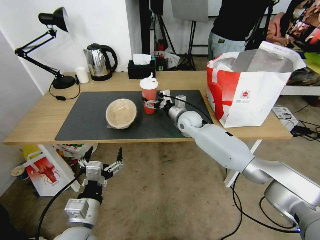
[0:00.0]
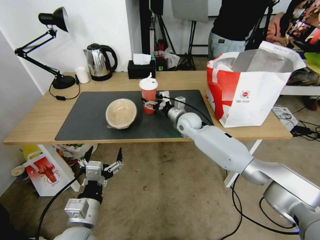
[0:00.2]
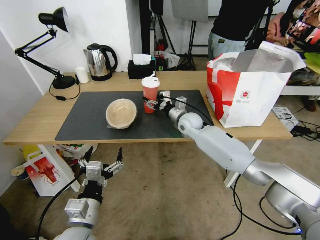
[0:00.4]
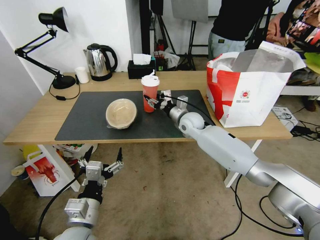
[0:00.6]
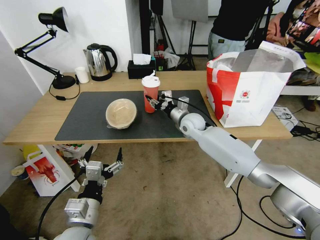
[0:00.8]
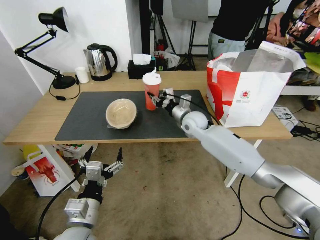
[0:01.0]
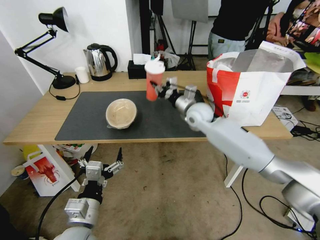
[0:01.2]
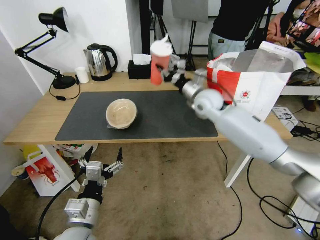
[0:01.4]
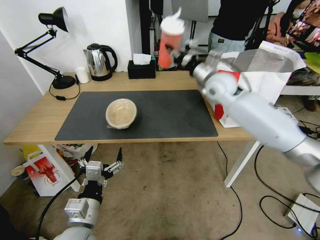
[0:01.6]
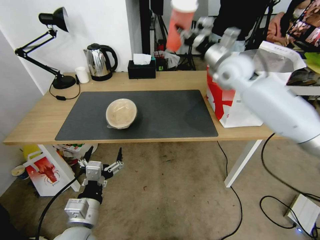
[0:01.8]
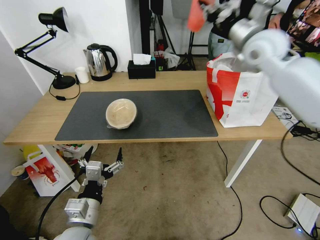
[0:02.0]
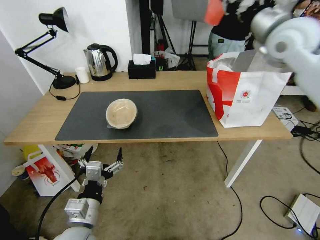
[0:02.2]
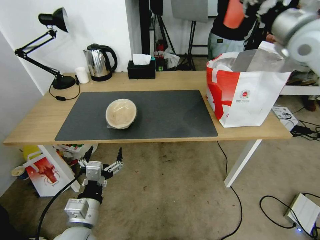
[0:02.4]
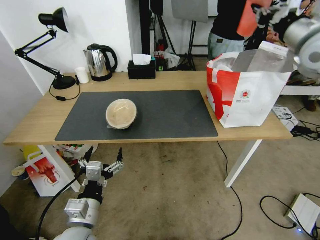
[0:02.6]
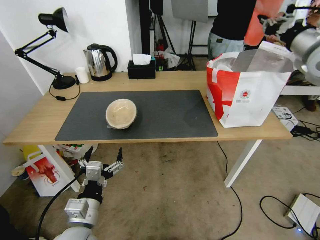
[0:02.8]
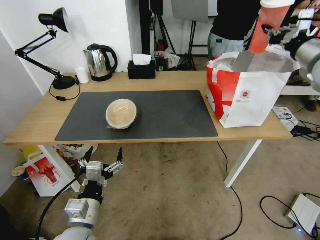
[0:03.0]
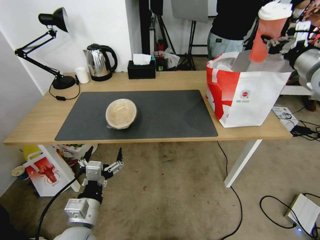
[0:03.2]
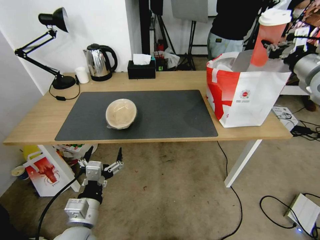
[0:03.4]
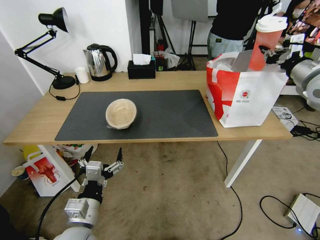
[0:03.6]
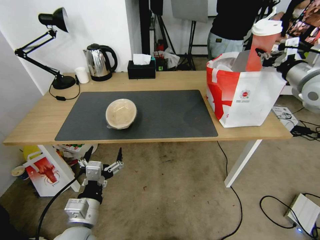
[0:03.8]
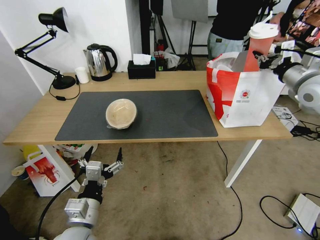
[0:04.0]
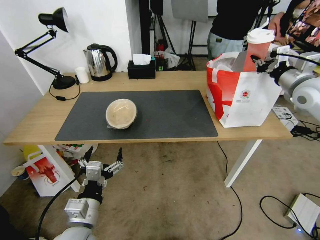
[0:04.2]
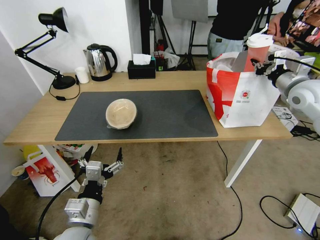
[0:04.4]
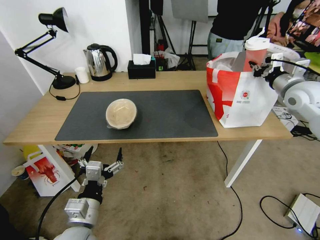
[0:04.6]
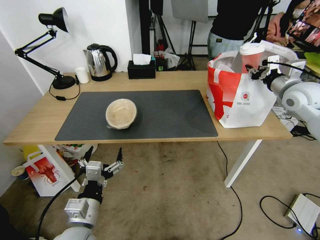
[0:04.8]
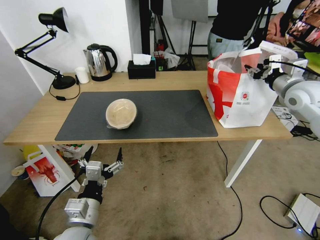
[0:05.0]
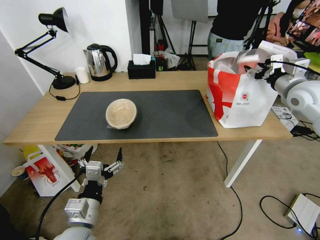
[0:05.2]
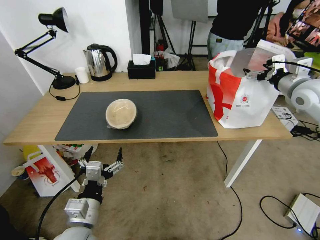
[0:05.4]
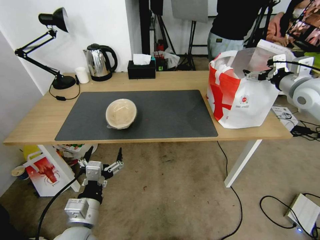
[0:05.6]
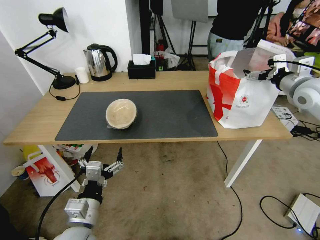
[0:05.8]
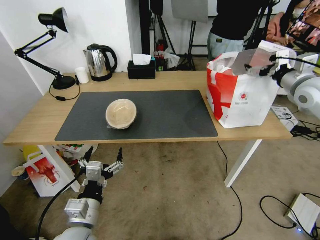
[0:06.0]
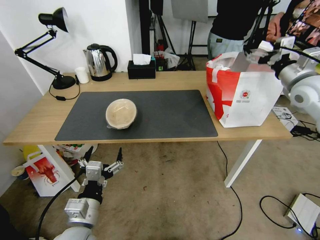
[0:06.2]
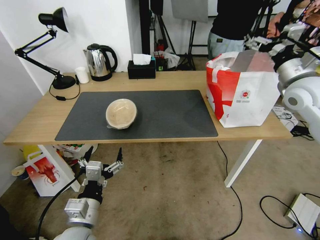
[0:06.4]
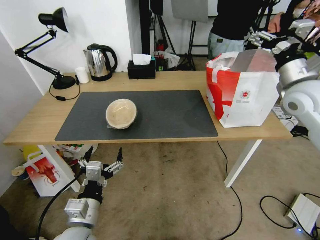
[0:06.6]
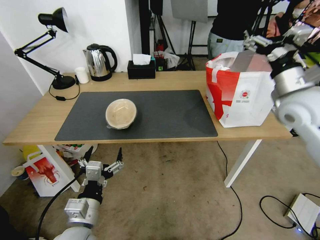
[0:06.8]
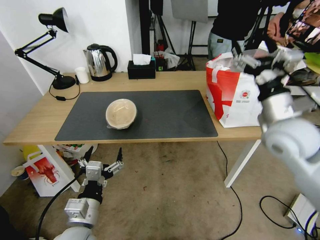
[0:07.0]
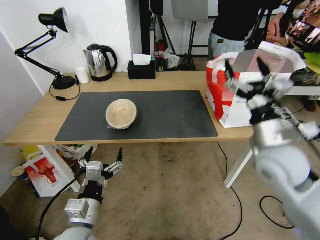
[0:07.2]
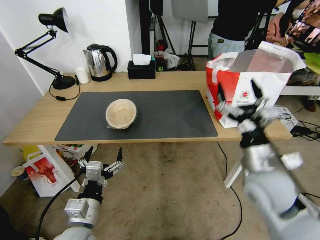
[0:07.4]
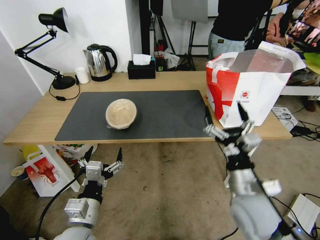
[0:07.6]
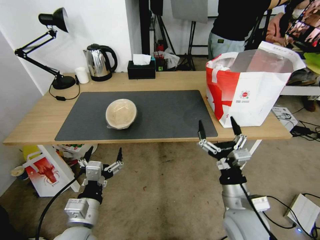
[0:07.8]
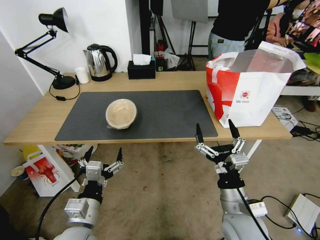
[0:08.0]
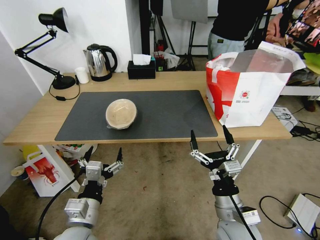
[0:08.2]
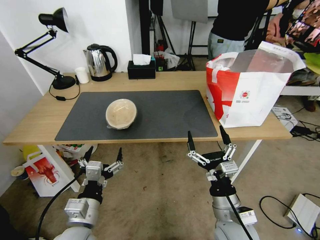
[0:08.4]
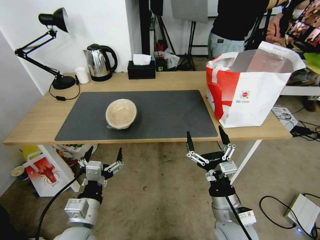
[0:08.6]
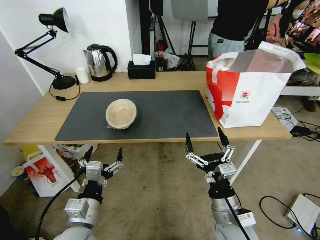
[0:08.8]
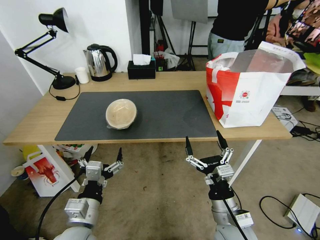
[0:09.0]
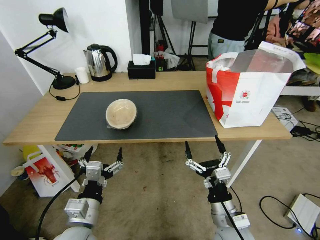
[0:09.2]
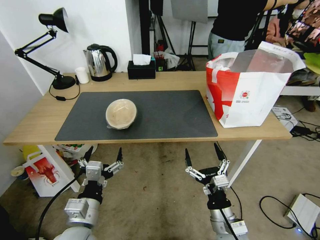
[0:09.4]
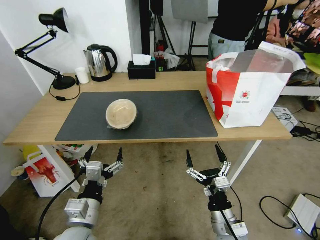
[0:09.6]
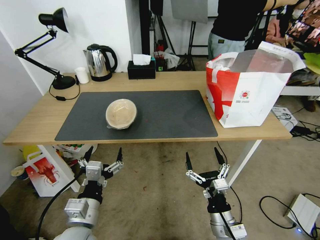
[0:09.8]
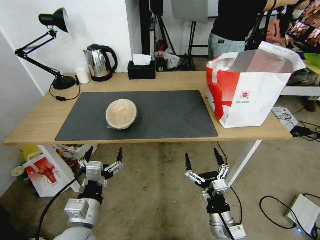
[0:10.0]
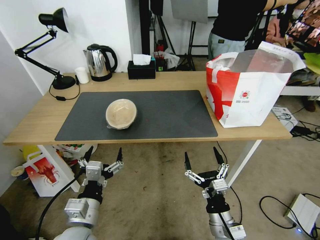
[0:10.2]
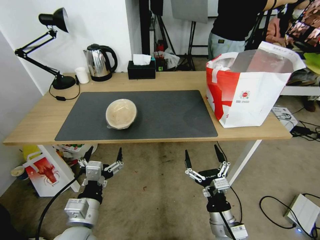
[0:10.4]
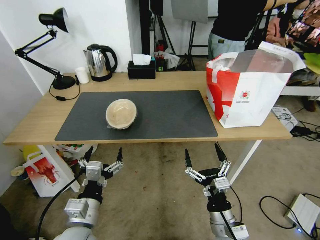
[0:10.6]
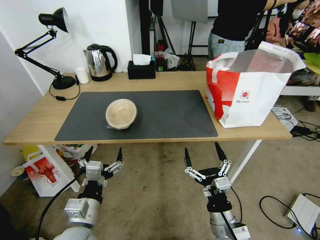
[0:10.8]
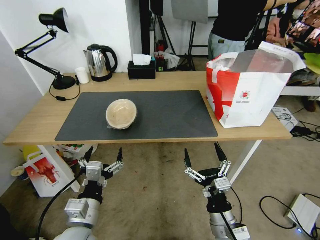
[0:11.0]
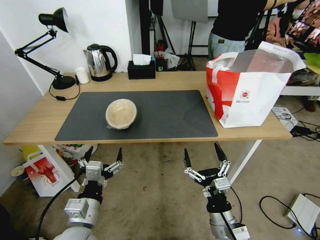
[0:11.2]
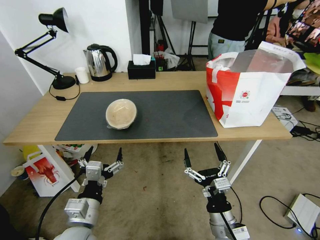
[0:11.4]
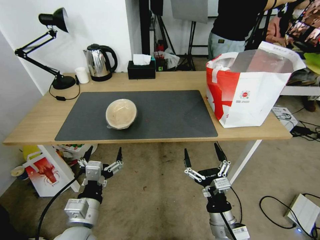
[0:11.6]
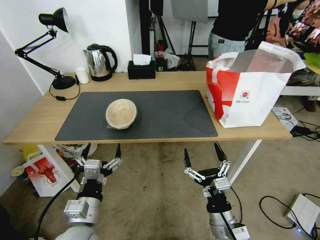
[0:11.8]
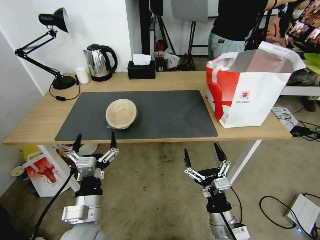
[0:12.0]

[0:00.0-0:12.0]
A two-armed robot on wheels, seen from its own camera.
Task of the whole recording: Pick up the trash from the table and place it into the takeout bag.
0:00.0 to 0:01.6: The right gripper travels upward and to the right by about 20 cm, and closes.
0:01.6 to 0:03.0: The right gripper is displaced to the right, upward and backward by approximately 25 cm.
0:03.0 to 0:04.4: The right gripper shifts roughly 10 cm downward.
0:04.4 to 0:06.0: The right gripper opens up.
0:06.0 to 0:07.6: The right gripper goes about 35 cm backward, to the left and downward.
0:07.6 to 0:09.0: The right gripper moves downward and backward, approximately 10 cm.
0:09.0 to 0:12.0: The grippers make only small movements.

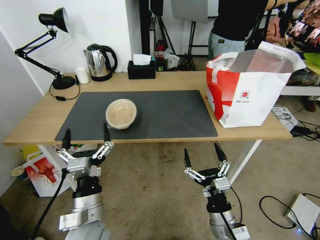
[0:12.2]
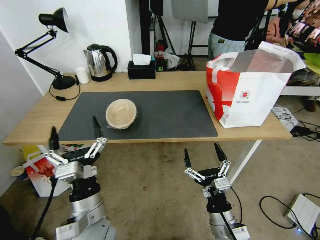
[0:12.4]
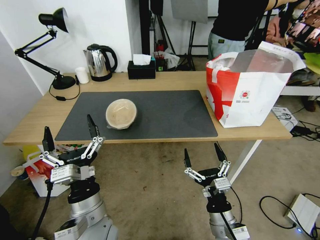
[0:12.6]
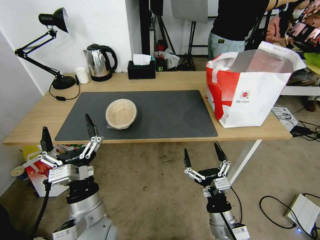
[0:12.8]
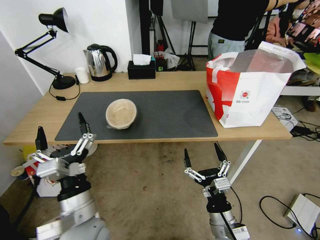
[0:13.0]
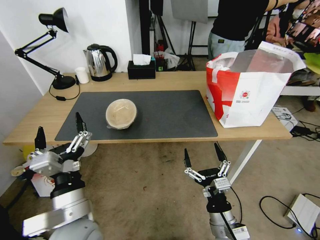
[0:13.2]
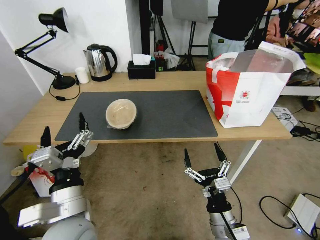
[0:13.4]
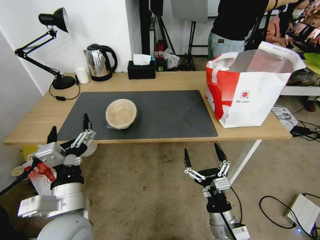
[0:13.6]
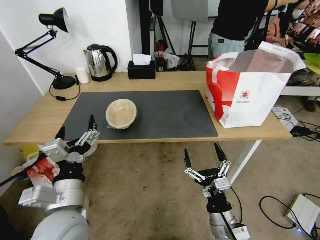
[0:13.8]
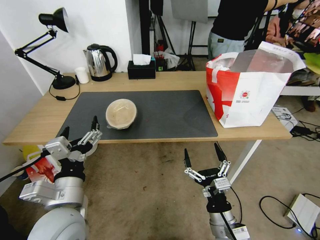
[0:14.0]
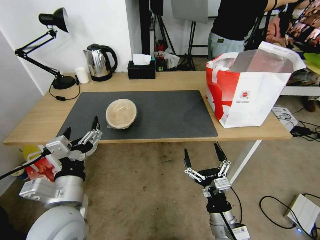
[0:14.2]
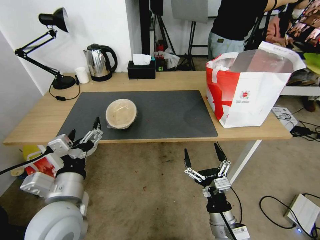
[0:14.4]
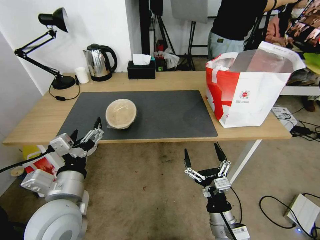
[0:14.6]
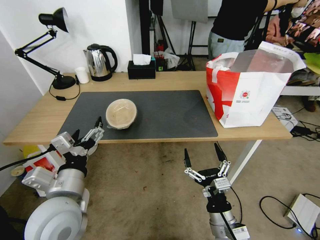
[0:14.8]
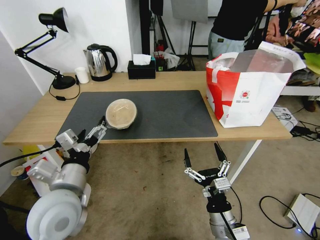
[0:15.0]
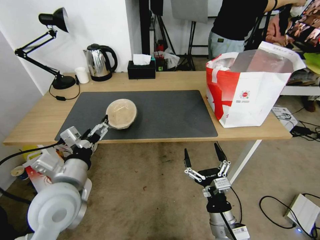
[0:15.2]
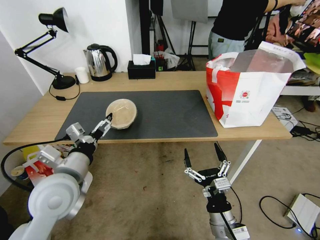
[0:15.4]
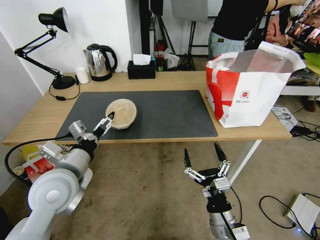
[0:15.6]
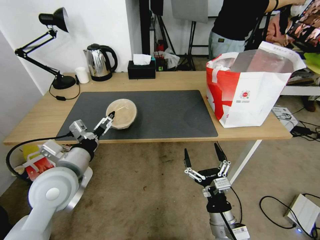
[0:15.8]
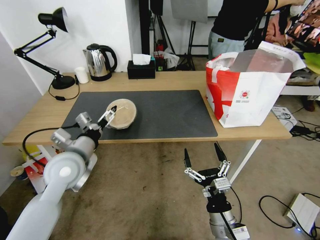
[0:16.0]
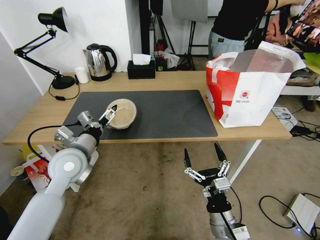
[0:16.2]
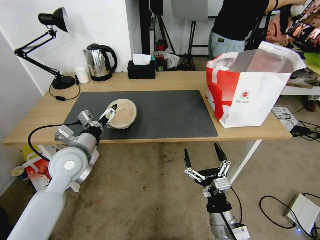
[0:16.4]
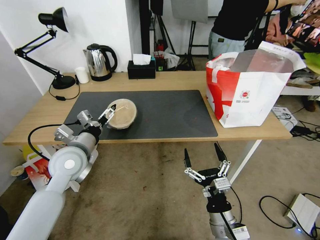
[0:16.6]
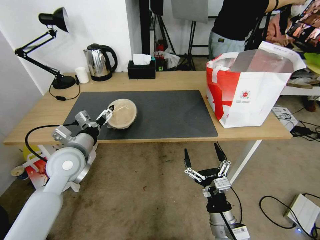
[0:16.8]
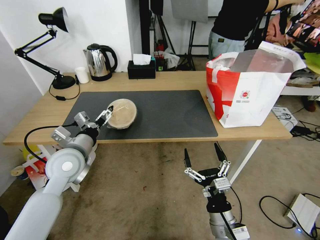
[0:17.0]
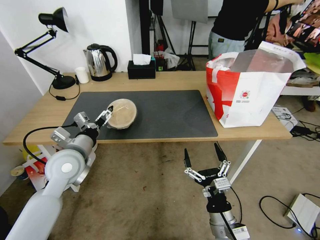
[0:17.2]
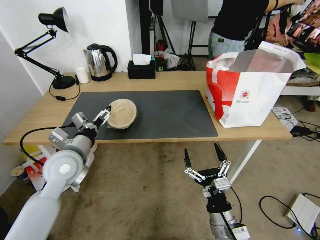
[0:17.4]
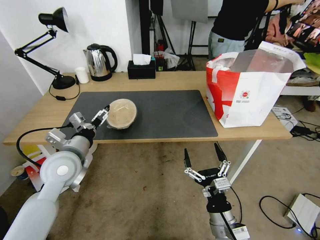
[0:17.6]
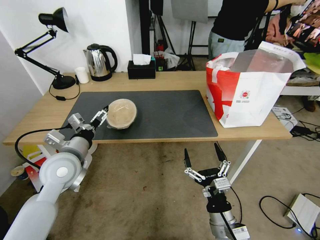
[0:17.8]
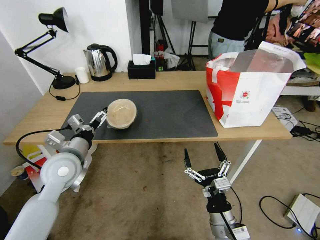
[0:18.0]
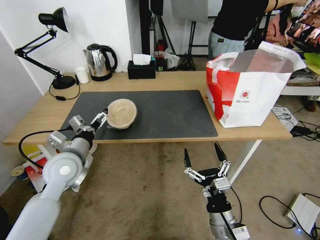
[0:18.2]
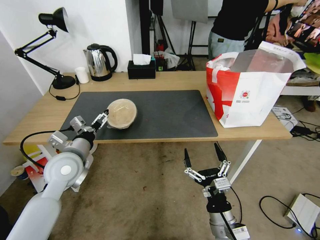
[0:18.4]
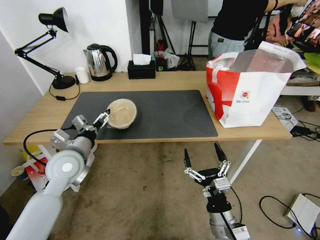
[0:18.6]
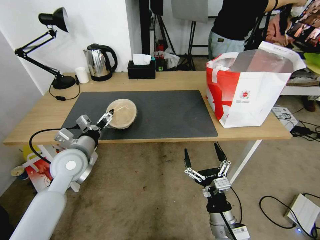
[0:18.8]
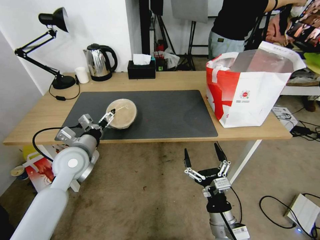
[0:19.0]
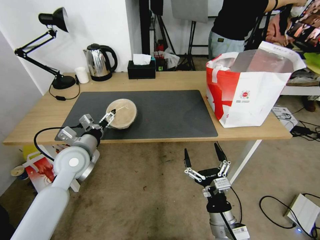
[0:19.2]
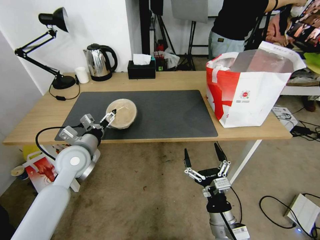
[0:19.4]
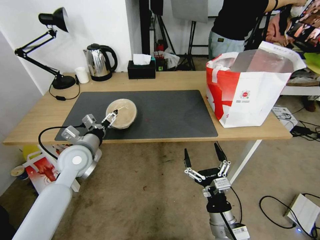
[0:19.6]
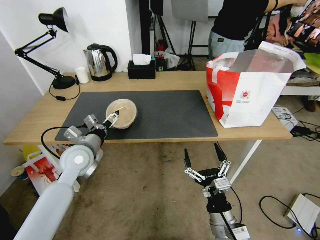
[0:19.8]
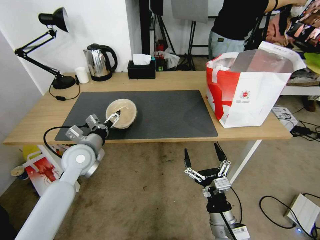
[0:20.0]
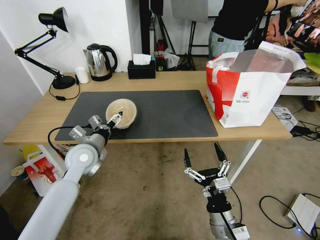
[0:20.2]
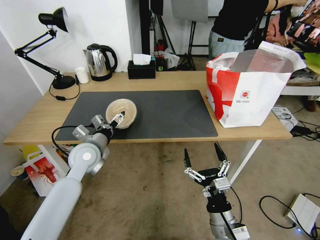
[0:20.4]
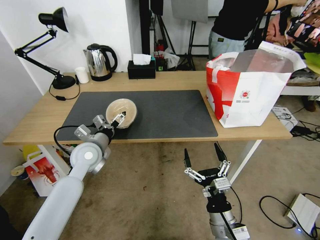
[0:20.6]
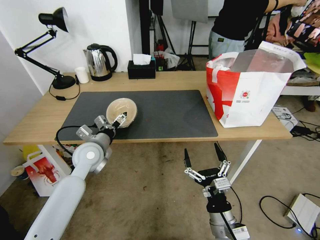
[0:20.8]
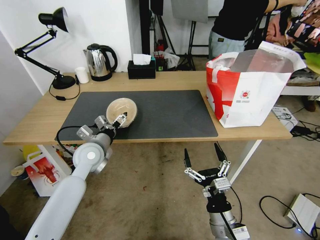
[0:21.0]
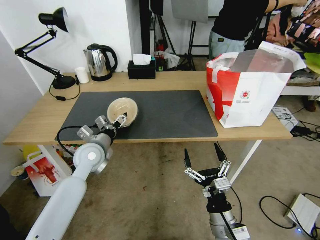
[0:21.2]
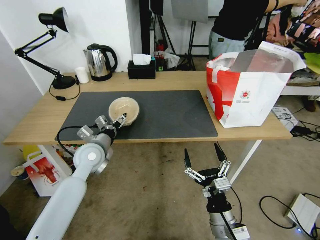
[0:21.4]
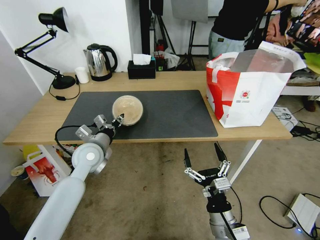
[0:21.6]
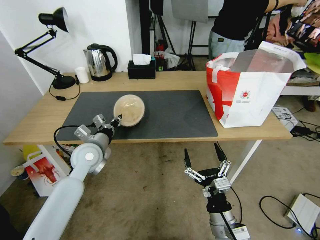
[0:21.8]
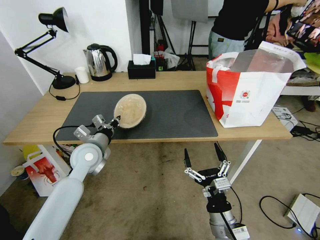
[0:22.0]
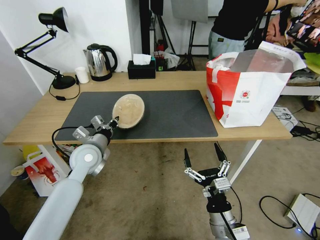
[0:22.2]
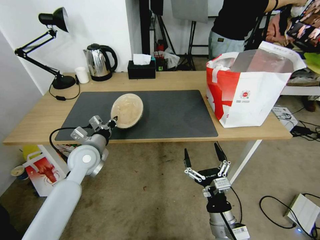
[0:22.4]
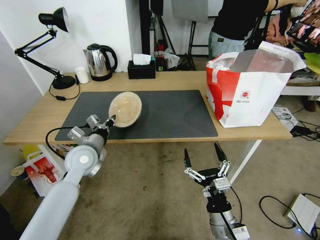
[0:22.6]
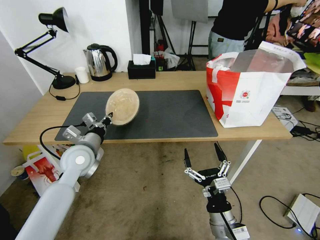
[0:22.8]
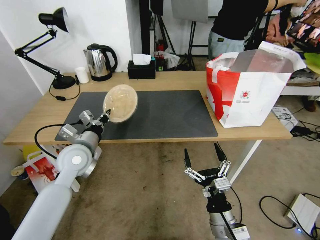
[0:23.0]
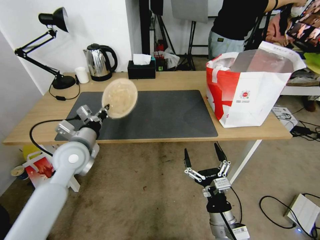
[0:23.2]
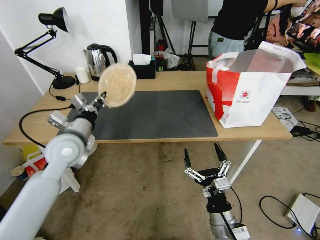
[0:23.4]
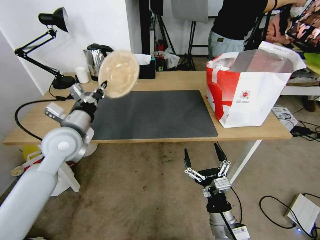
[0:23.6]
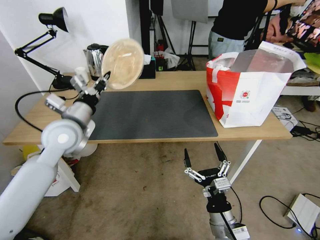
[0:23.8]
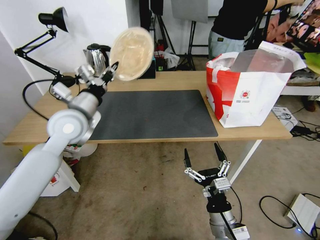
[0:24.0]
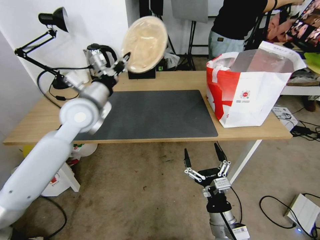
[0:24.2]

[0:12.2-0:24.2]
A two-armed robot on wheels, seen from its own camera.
Task of the whole recording: Pick up the trash from the table and place it into the takeout bag.
0:12.2 to 0:13.8: The left gripper goes roughly 5 cm upward.
0:13.8 to 0:15.2: The left gripper shifts by some 5 cm.
0:15.2 to 0:16.6: The left gripper shifts about 10 cm forward.
0:16.6 to 0:19.8: The grippers move only a little.
0:19.8 to 0:21.2: The grippers move only a little.
0:21.2 to 0:22.6: The left gripper closes up.
0:22.6 to 0:24.2: The left gripper is displaced upward by some 15 cm.
